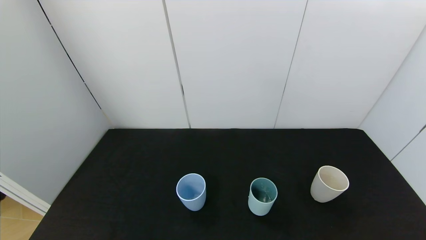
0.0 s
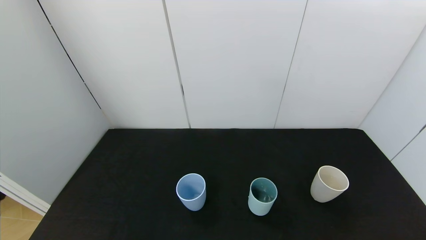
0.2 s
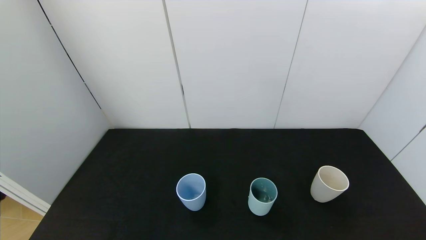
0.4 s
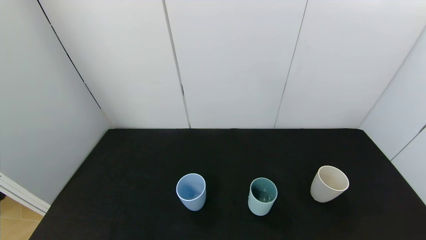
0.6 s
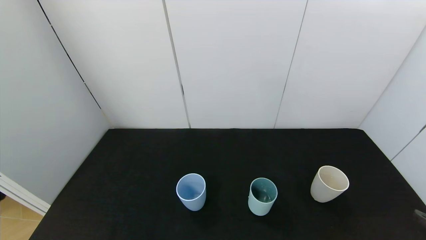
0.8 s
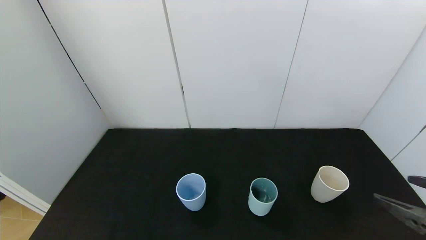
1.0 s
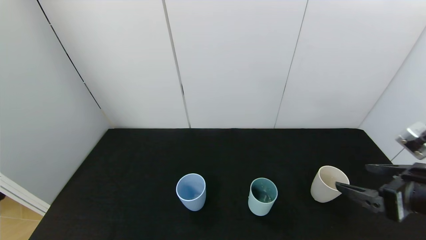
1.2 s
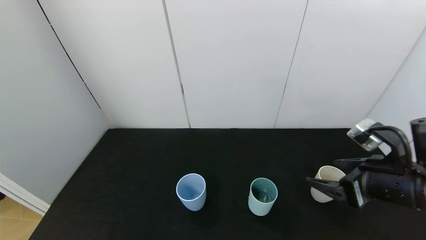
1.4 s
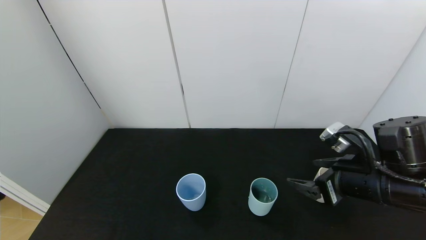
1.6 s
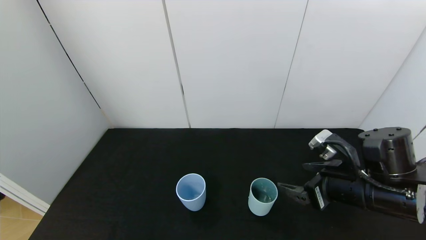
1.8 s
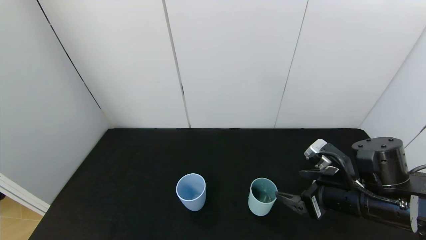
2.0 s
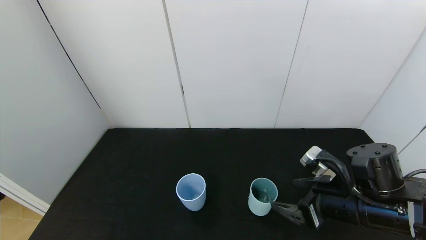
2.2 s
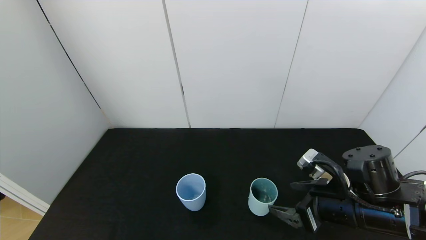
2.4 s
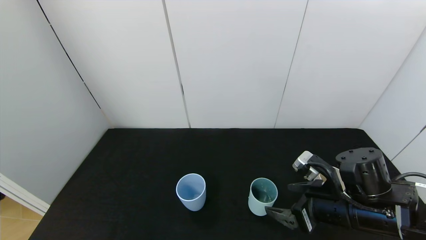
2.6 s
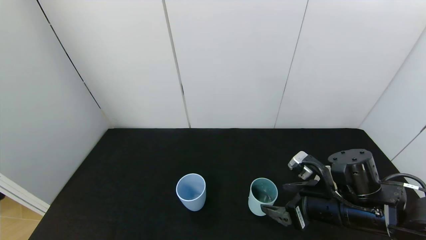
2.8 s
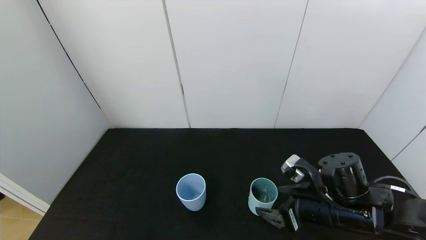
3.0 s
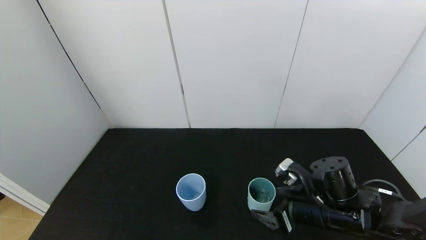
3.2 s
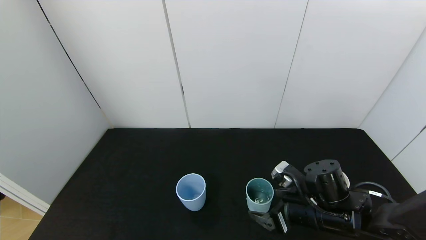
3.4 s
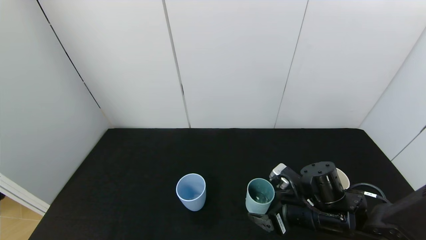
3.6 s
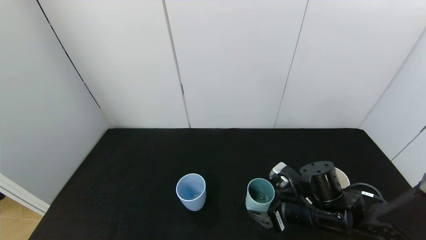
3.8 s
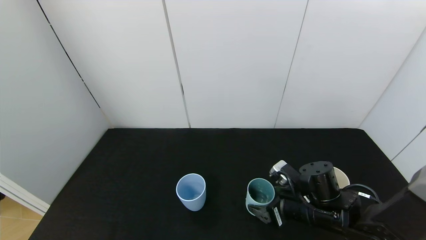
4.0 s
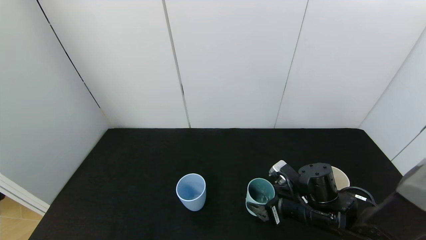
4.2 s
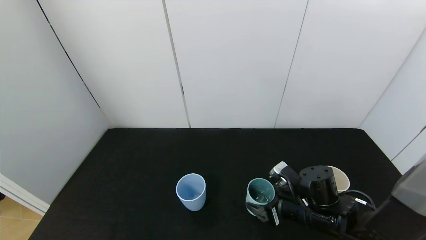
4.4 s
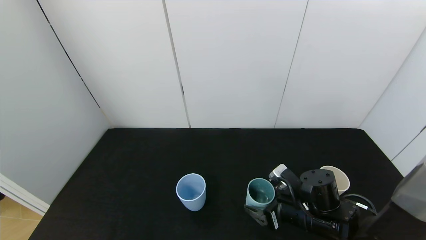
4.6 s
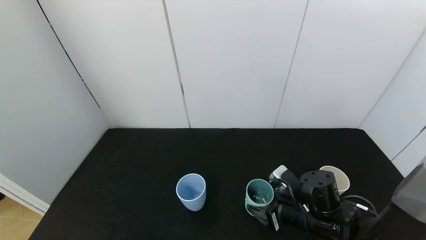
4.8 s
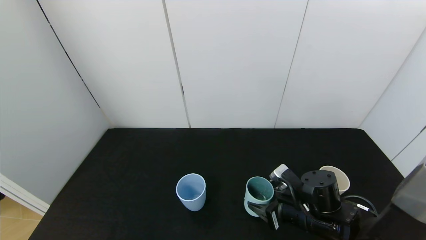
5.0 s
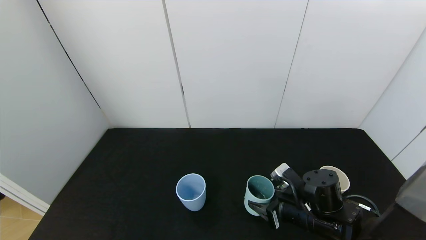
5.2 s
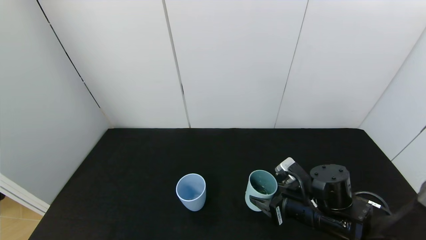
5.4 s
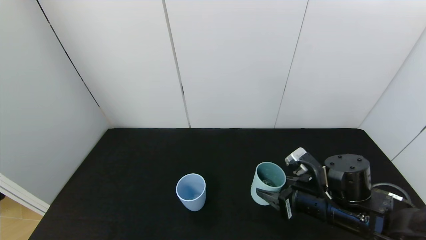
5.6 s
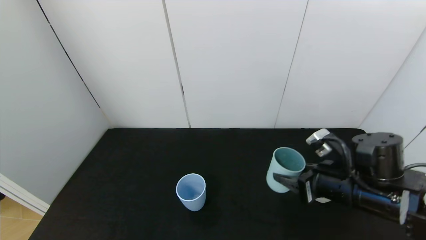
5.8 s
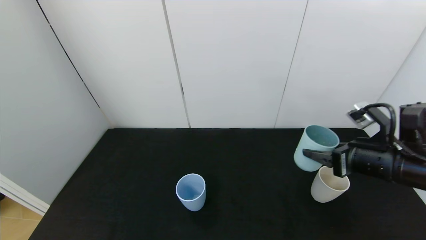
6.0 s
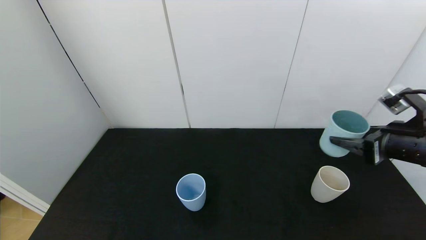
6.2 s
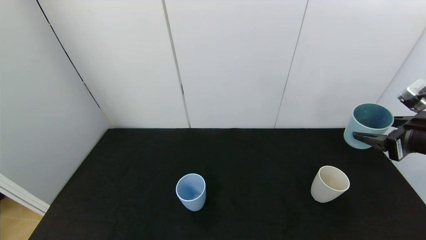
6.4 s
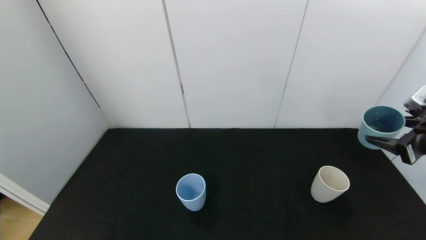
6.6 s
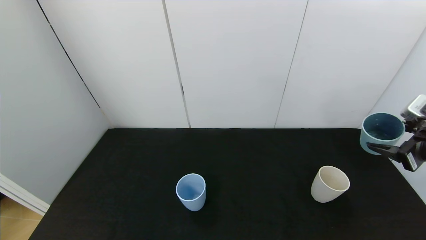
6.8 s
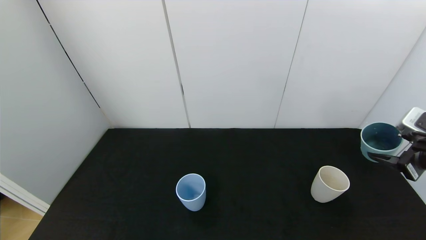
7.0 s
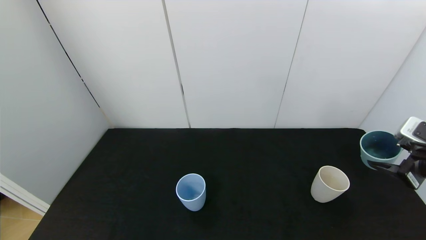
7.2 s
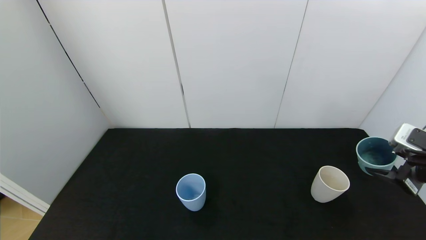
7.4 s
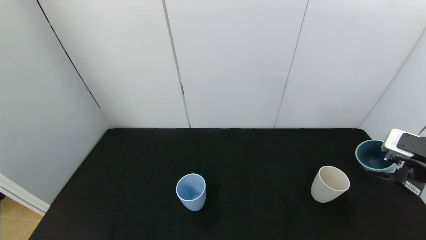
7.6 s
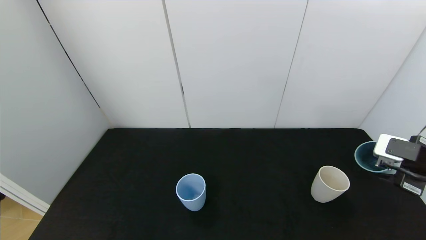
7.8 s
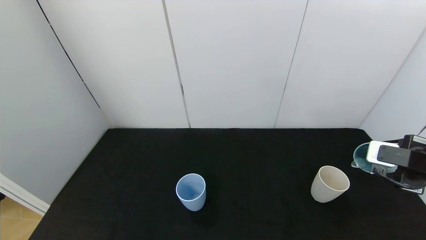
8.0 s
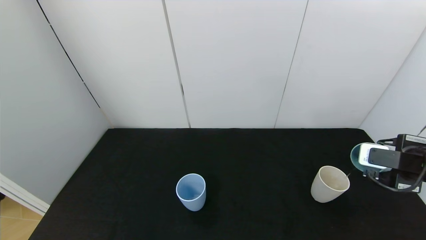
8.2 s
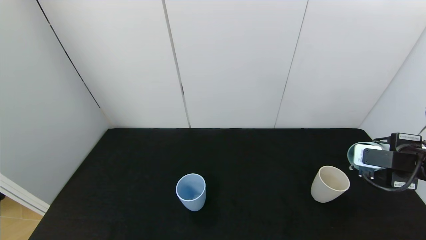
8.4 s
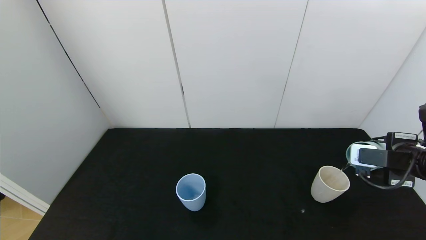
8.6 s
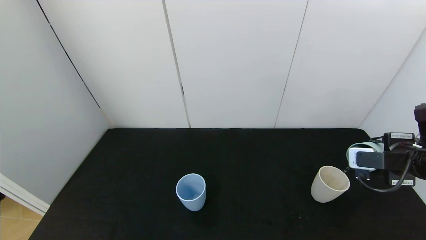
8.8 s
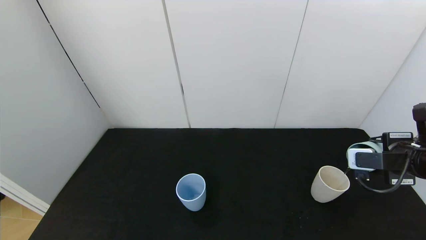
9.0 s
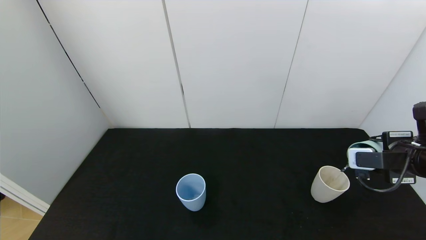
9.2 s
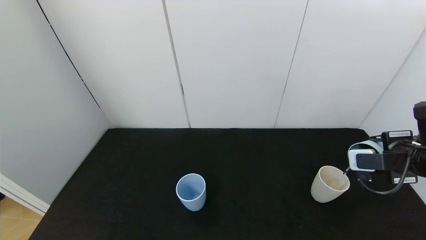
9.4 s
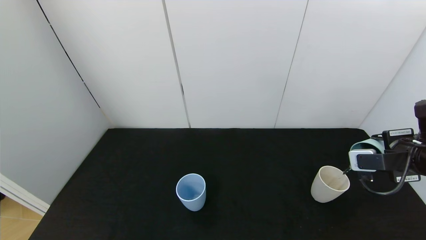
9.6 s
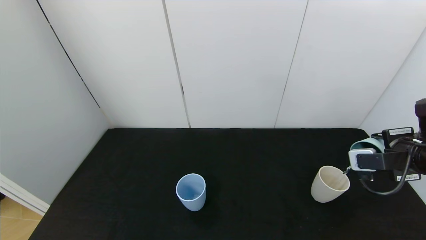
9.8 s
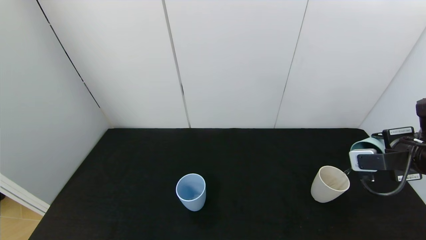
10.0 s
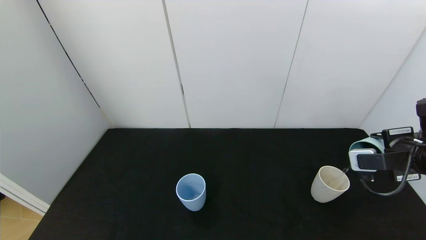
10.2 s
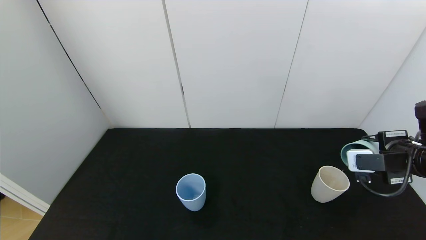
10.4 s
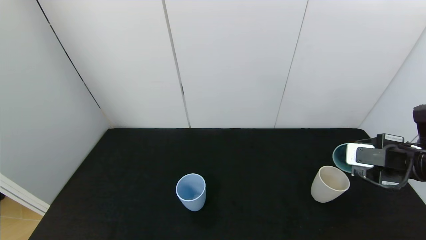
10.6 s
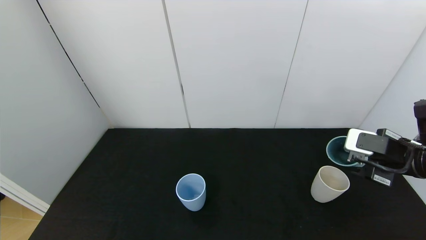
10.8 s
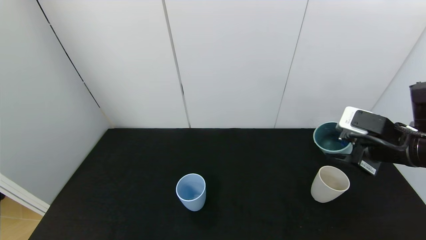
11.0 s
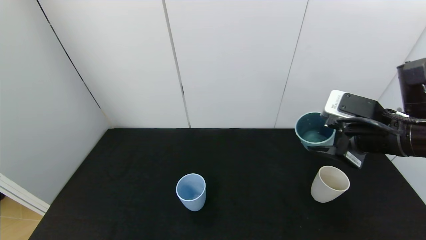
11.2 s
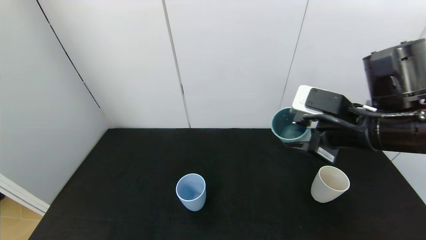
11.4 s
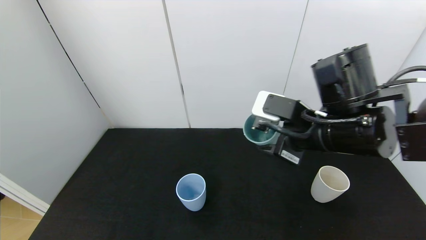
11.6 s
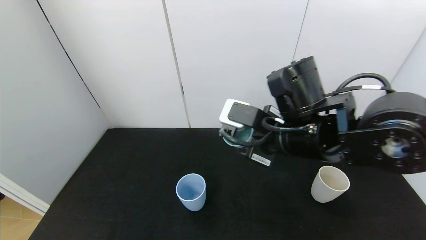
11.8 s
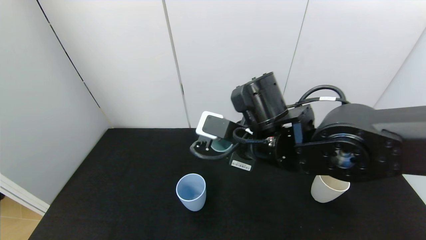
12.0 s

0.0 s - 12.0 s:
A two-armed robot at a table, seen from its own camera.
Task of the whole recording: use the gripper to pour the water into the other two cups on black table.
Step, 0.0 s - 5.0 s: Grasp the green cup with the right gripper.
Step, 5.2 s - 11.0 s: Pour water from green cup to white cup with the right gripper.
0.0 s - 1.6 s: The right gripper shifts some 30 cm forward and to the left.
1.6 s - 3.0 s: The right gripper shifts about 5 cm downward.
3.0 s - 4.4 s: The right gripper goes roughly 5 cm downward.
4.4 s - 6.0 s: The right gripper moves upward and to the right, about 15 cm, and closes its fingers.
6.0 s - 7.6 s: The right gripper shifts about 10 cm to the right.
9.0 s - 10.4 s: The grippers move only a little.
10.4 s - 12.0 s: The right gripper goes about 25 cm to the left.

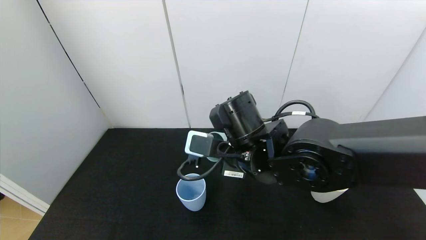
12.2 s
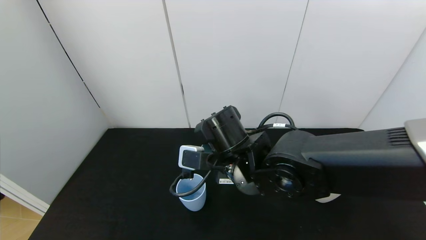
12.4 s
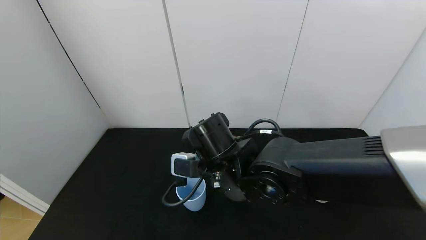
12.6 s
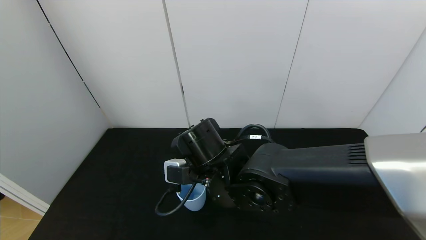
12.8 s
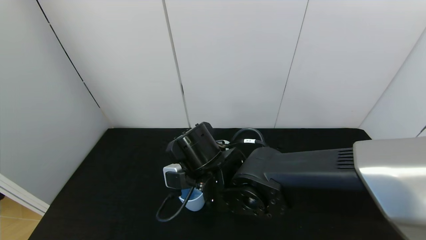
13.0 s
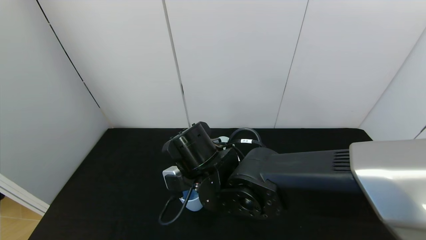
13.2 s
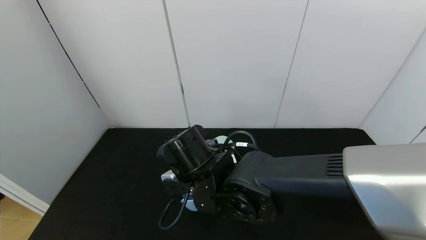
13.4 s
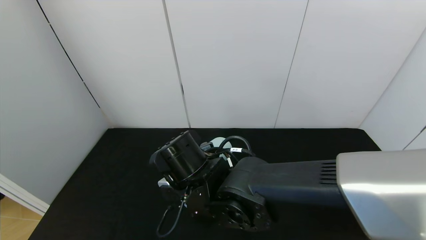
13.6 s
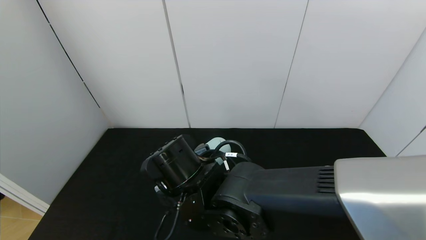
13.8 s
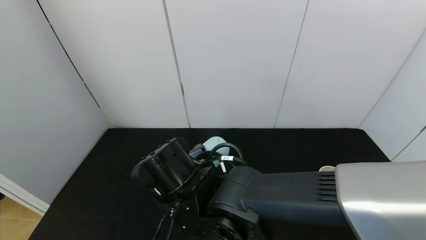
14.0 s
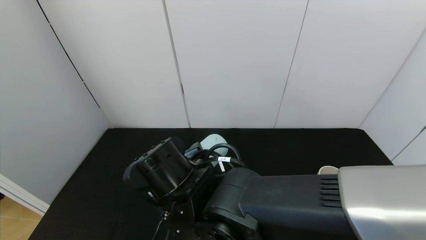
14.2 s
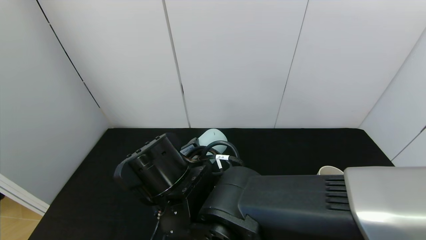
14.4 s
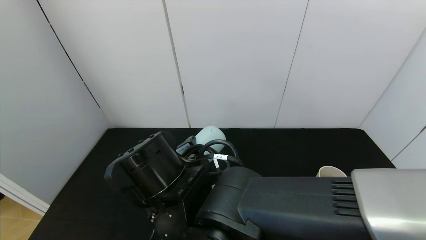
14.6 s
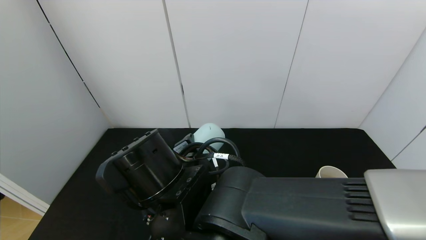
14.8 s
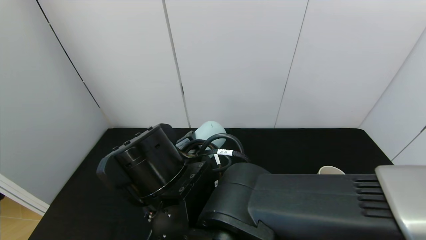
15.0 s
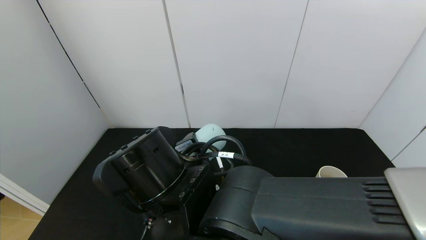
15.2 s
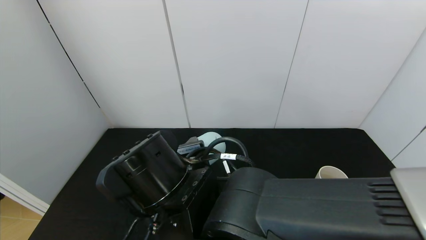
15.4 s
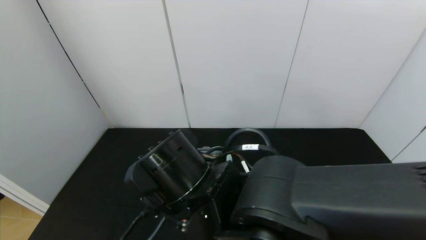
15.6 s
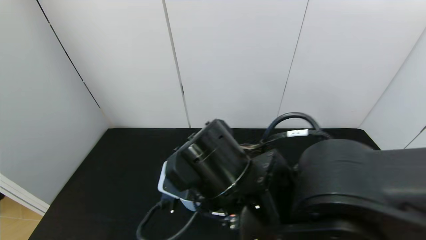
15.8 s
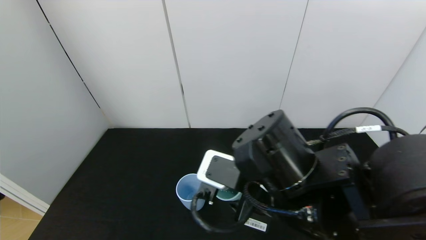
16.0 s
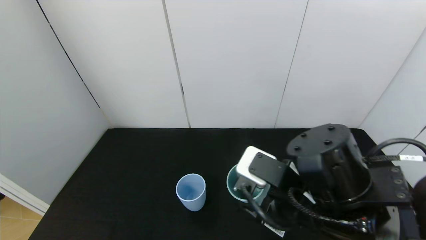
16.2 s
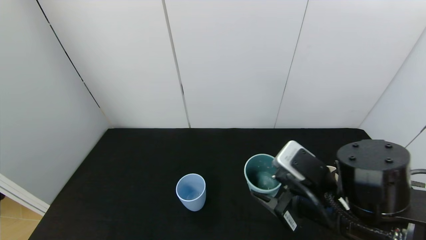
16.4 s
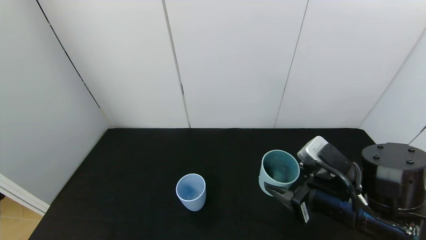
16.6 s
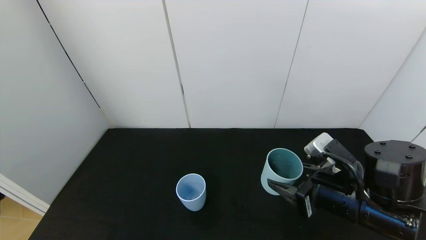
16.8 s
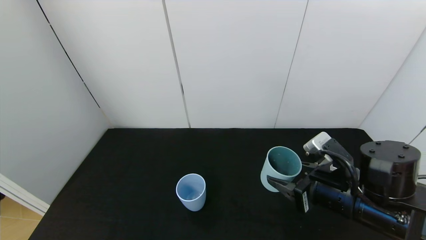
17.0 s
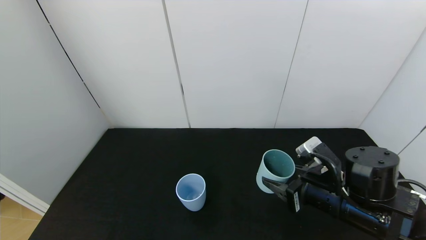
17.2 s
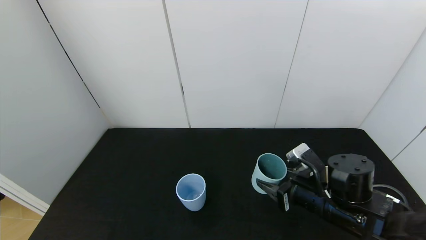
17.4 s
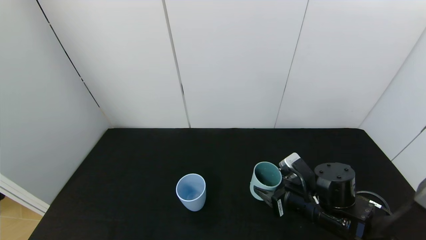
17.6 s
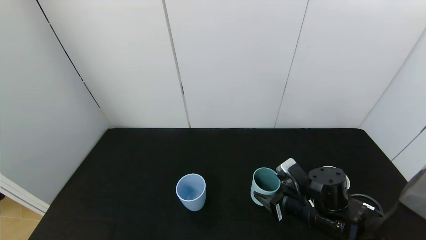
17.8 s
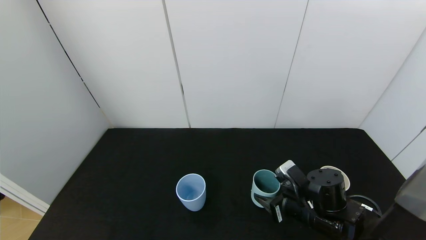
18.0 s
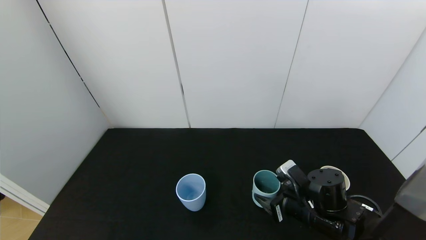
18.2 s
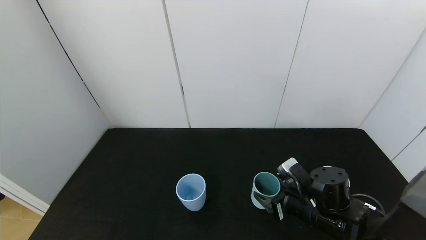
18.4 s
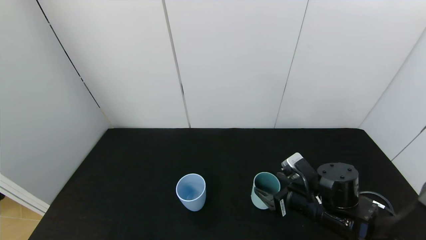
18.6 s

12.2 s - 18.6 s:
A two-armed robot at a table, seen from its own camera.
Task of the whole recording: use the gripper to pour the water into the other two cups on black table.
Step, 12.2 s - 16.0 s: Pour water from green cup to blue cup with the right gripper.
12.2 s - 13.8 s: The right gripper heads to the left, covering some 10 cm.
13.8 s - 15.4 s: The right gripper moves about 5 cm.
15.4 s - 17.0 s: The right gripper heads to the right, covering some 25 cm.
17.0 s - 18.6 s: The right gripper shifts about 10 cm downward, and opens up.
